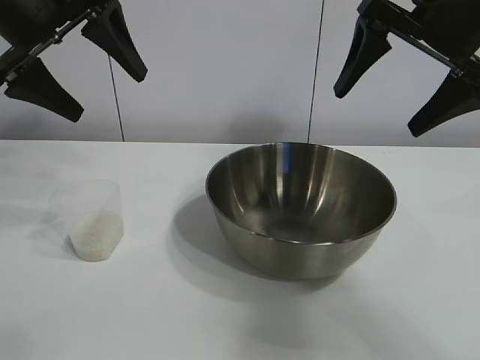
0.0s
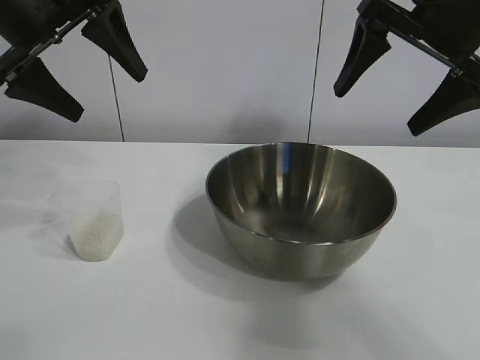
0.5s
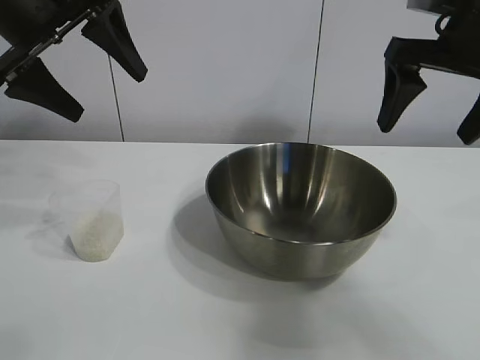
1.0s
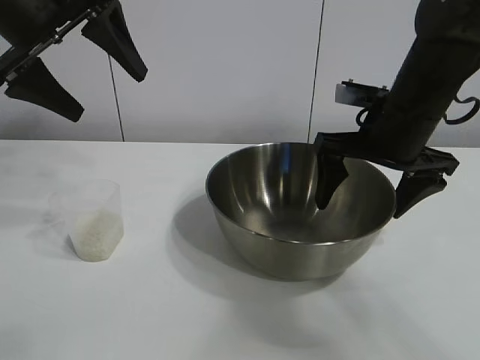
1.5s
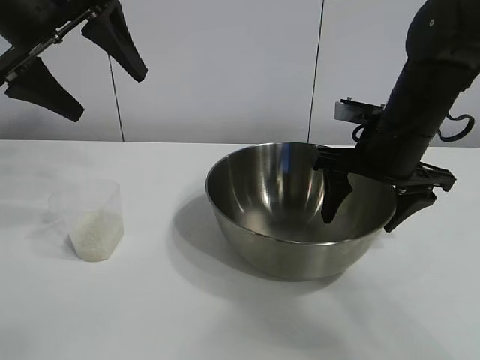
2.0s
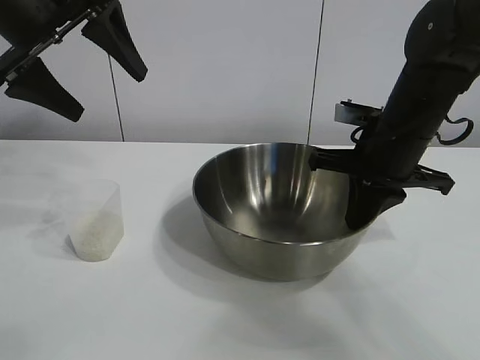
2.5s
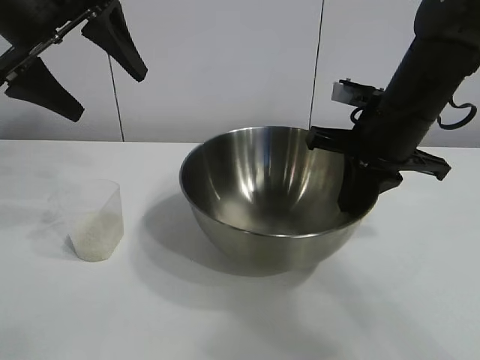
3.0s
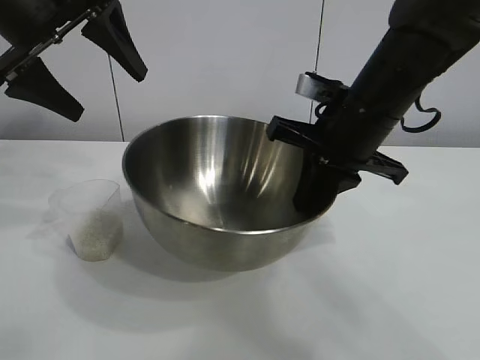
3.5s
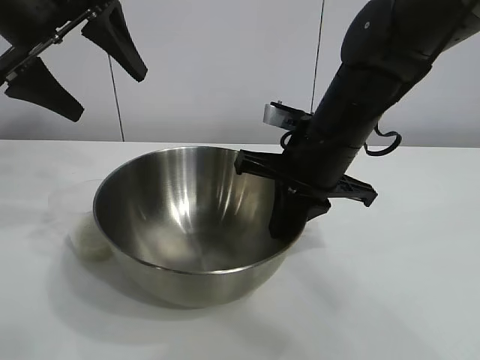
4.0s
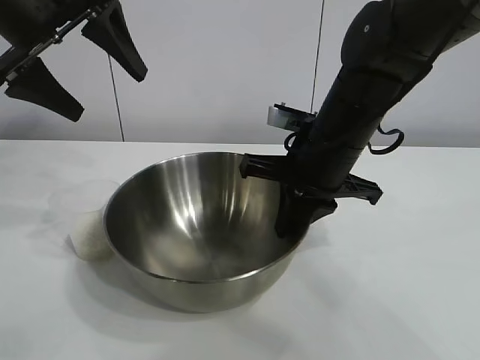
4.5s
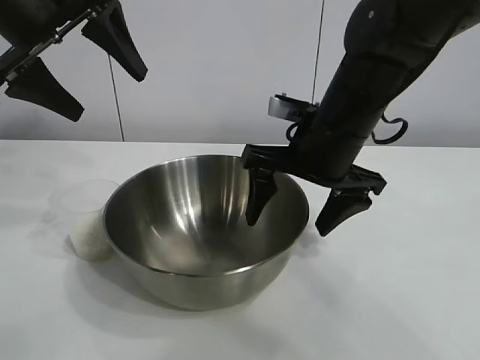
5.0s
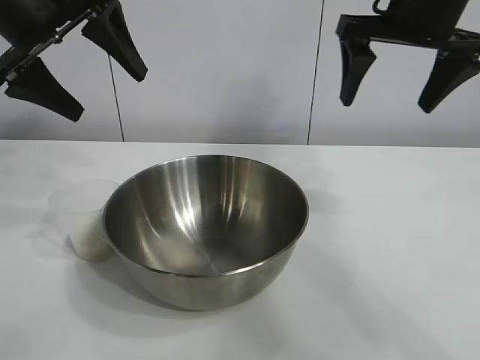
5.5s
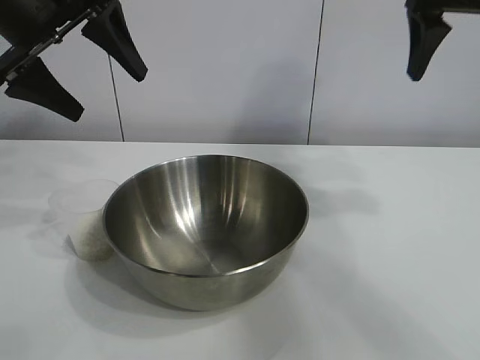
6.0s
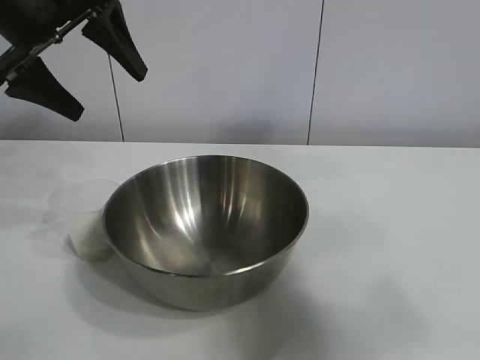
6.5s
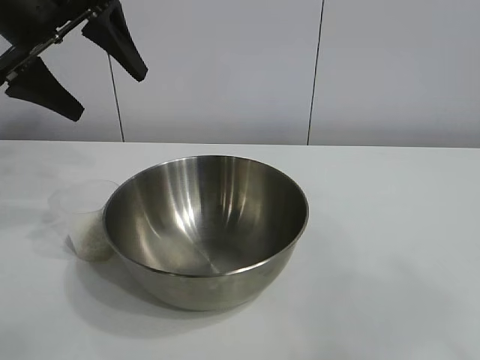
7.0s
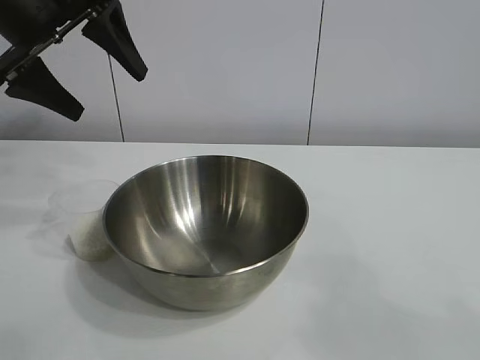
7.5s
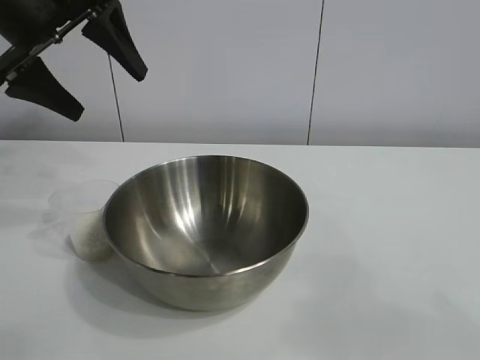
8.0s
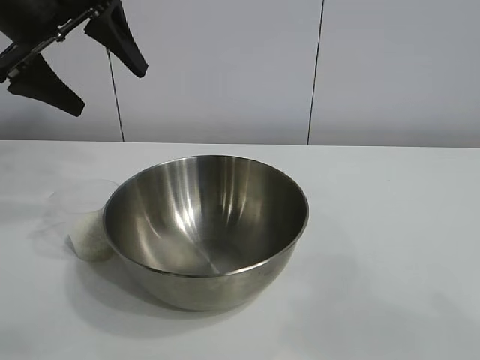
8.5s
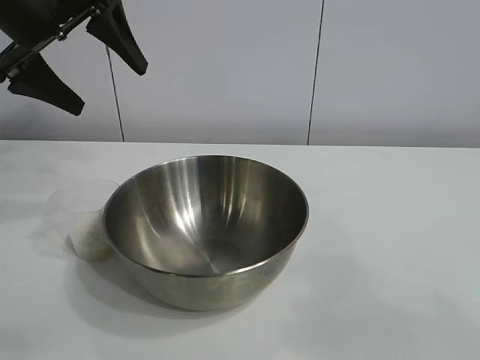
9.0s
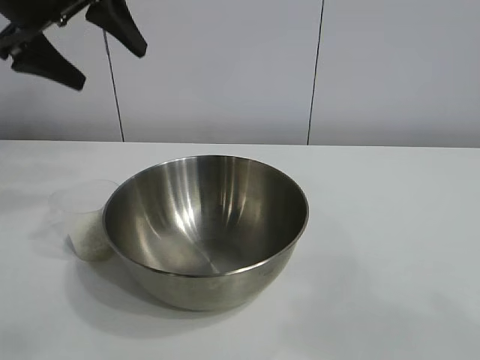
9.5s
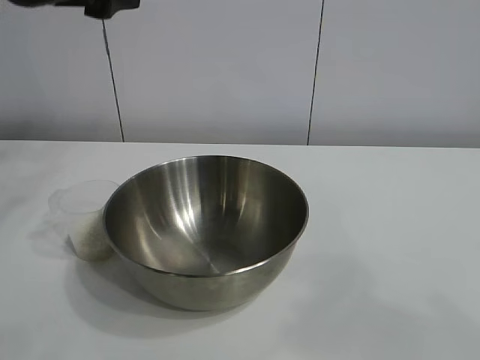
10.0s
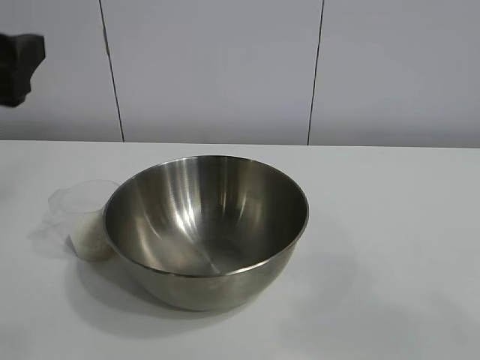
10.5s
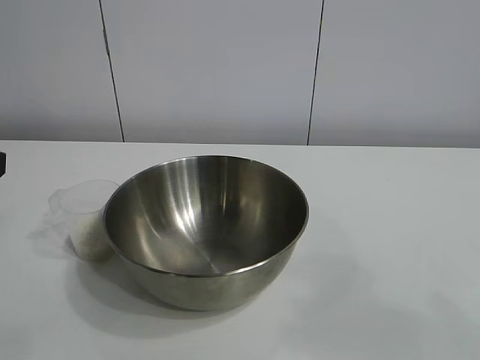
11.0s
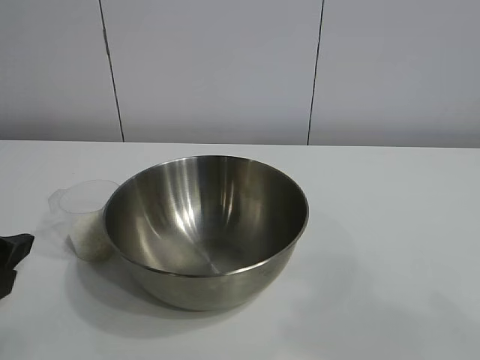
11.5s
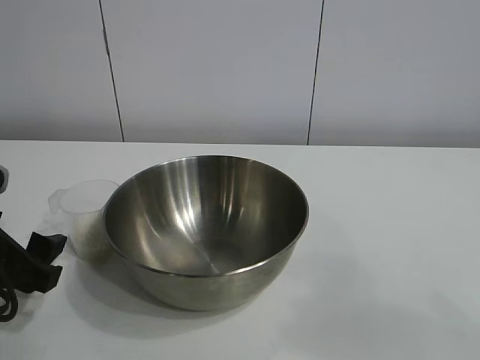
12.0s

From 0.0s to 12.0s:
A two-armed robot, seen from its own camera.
Task of the whole recording: the right gripper grasp the rice container and place it in the center of the table, the left gripper grasp the rice scoop and pour the rice into the rice container.
Step, from 1.0s to 4.5s: Move the bowl in the center of view with right gripper.

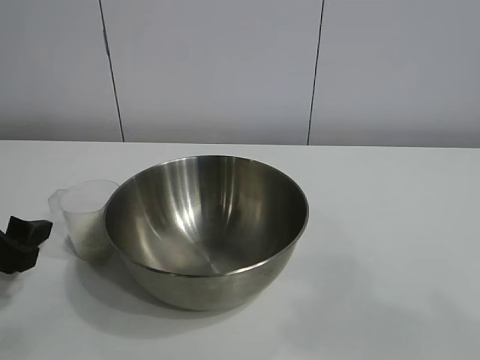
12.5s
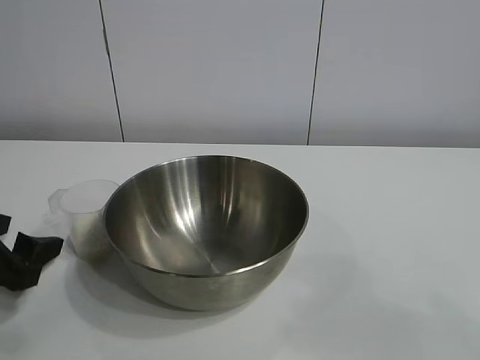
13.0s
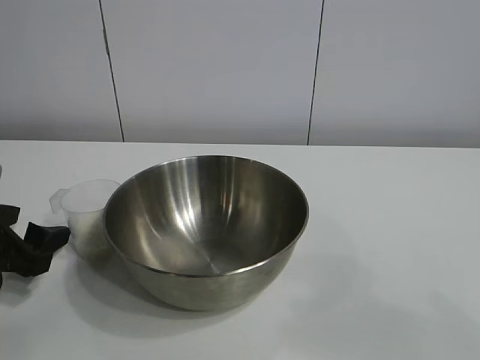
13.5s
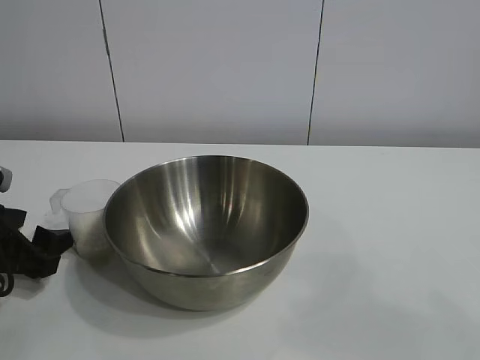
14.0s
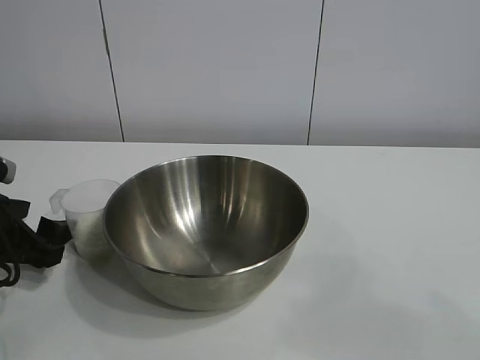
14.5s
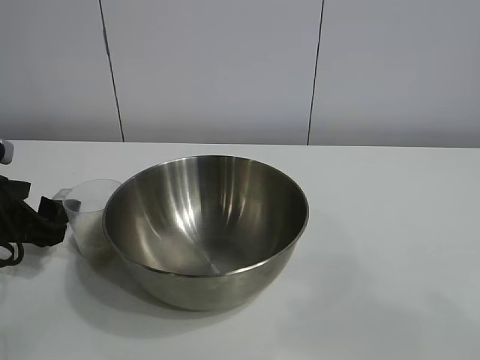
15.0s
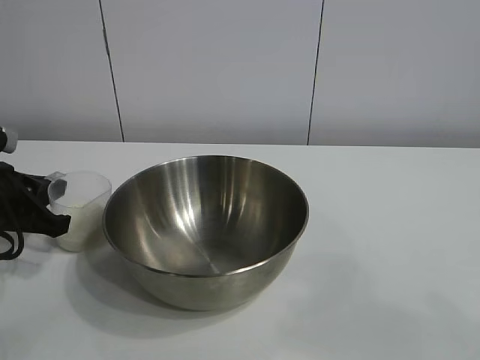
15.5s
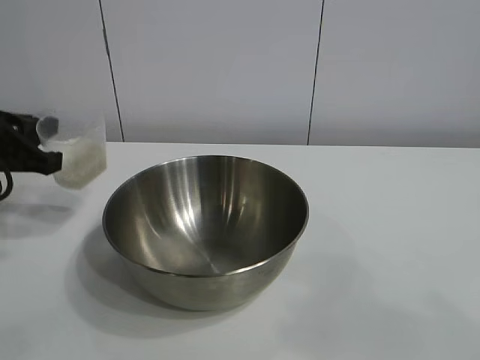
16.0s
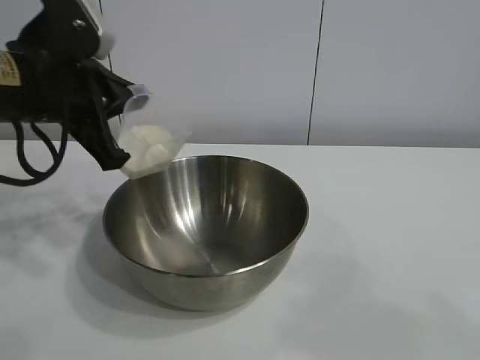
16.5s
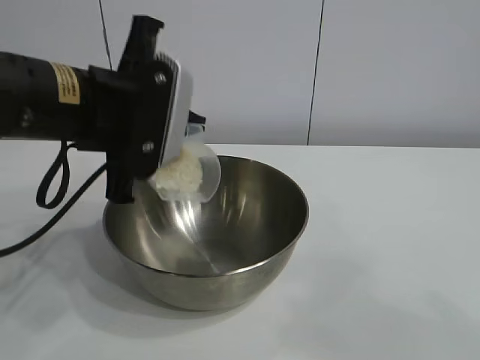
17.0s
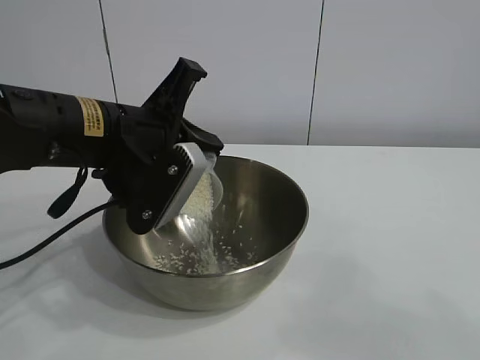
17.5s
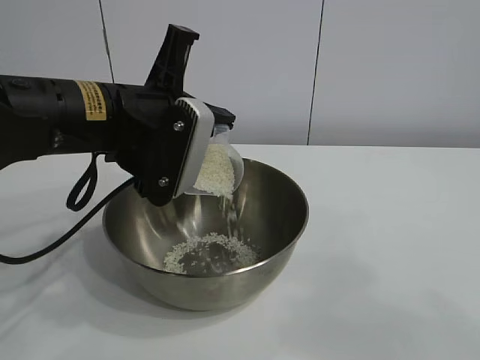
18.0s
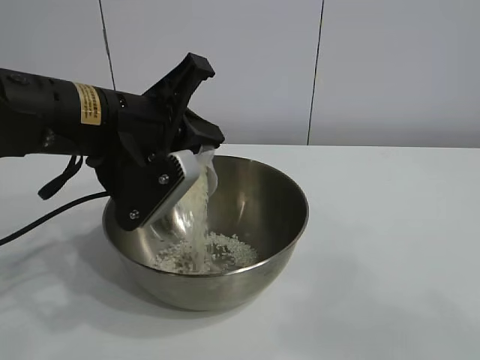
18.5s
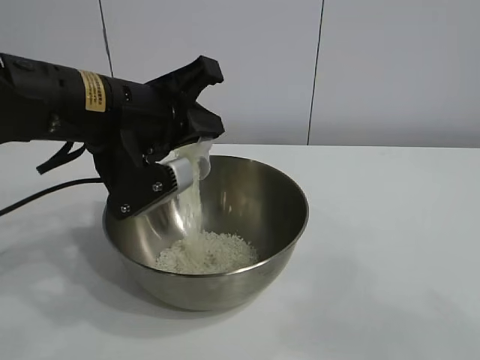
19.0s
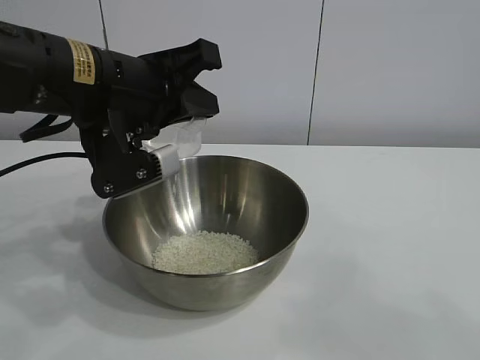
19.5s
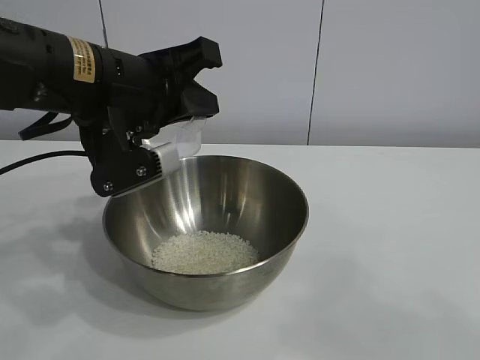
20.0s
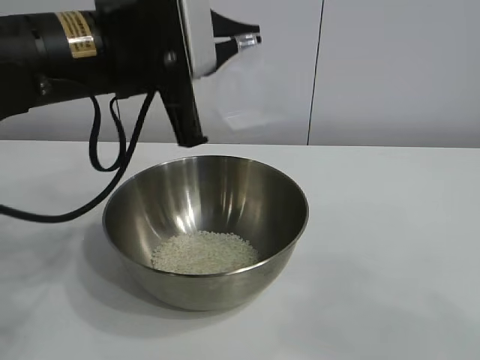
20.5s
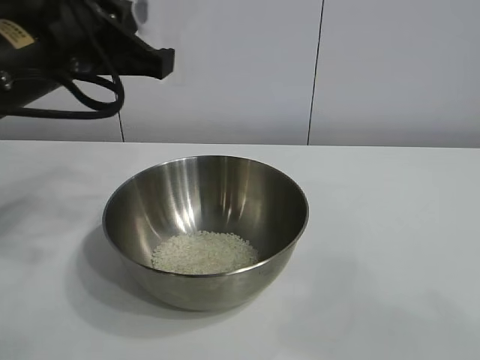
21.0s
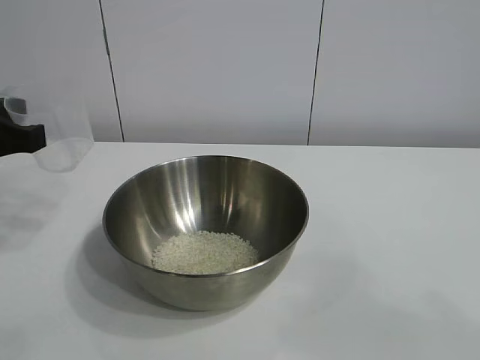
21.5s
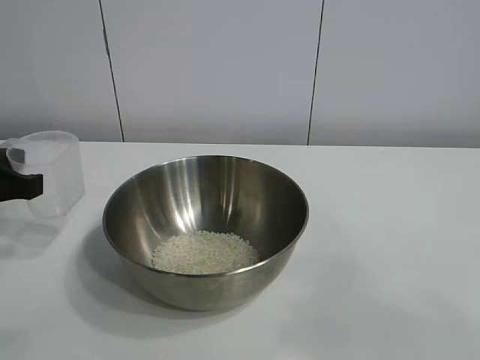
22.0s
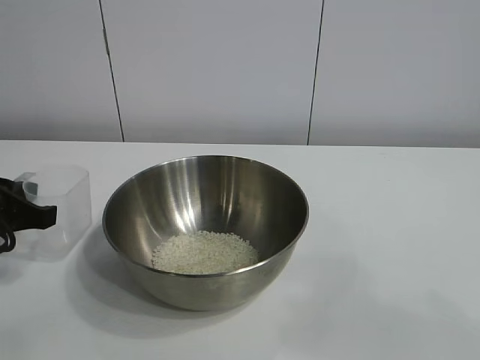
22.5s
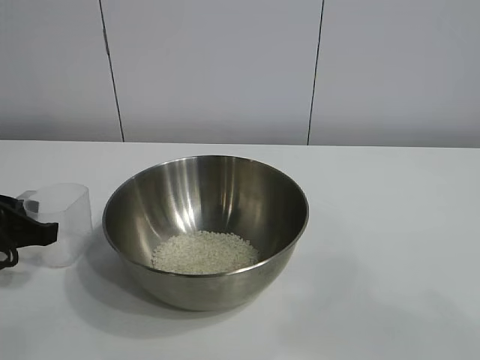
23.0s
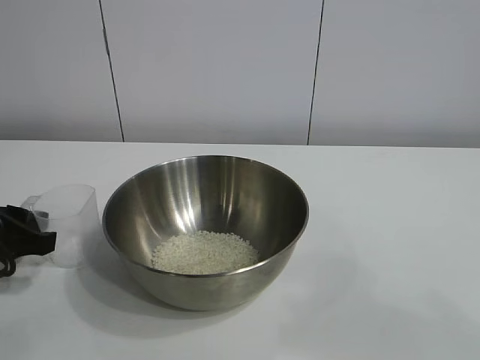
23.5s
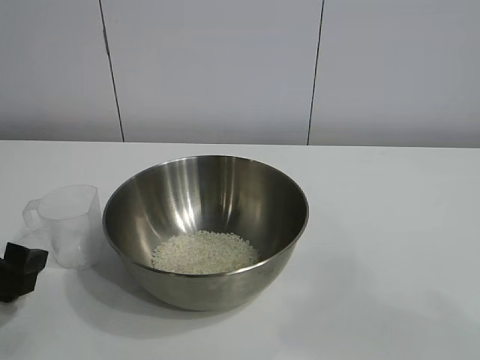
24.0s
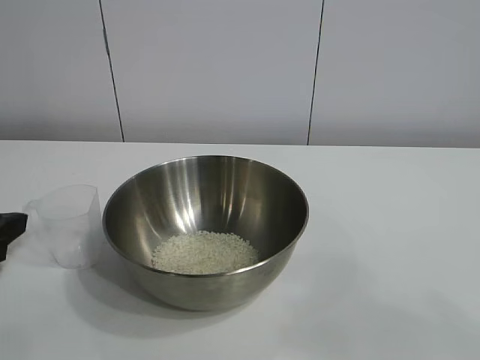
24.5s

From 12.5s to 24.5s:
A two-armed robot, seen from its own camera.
Task of the whole recording: the right gripper grasp the rice container and place it in the center of the table, the left gripper grasp the rice scoop and pour the rice into the rice container.
Step, from 12.5s to 15.0s: Grasp the cup with rice in it with left gripper.
Step, from 16.0s to 19.5s: Pour the rice from the cup into the bowl with the left gripper.
Step, from 20.5s to 23.5s: Place the cup on the table with the left gripper.

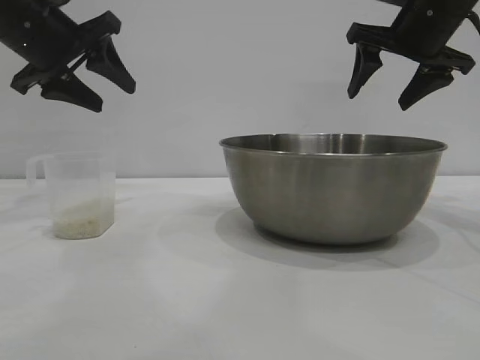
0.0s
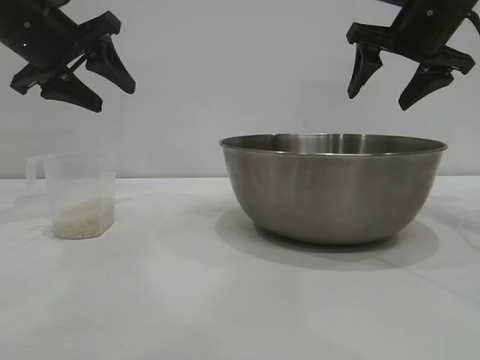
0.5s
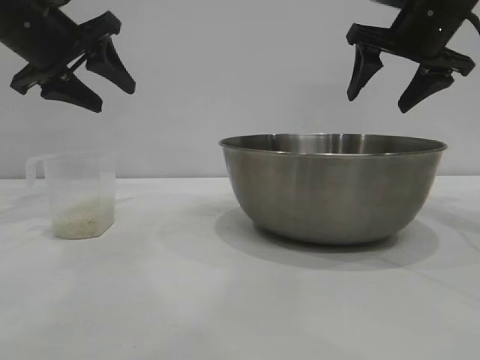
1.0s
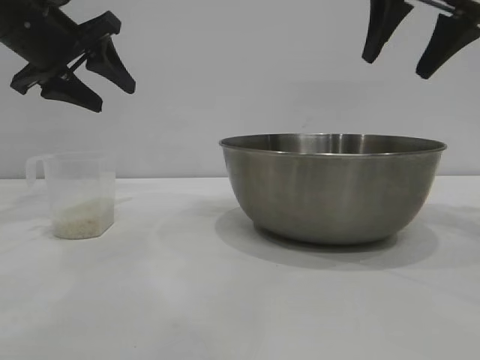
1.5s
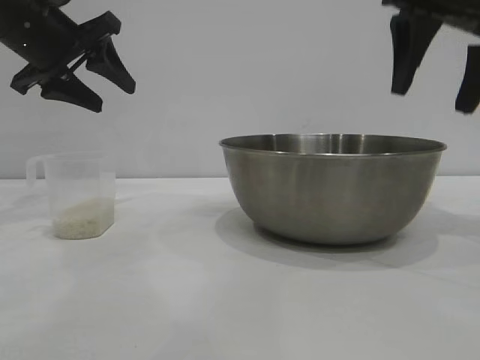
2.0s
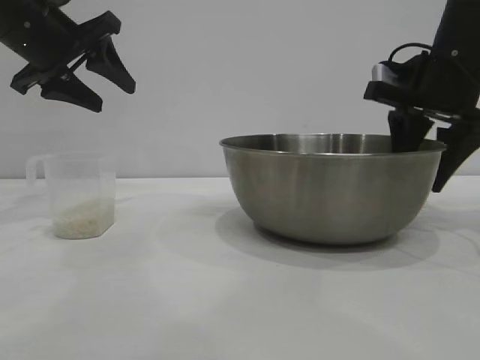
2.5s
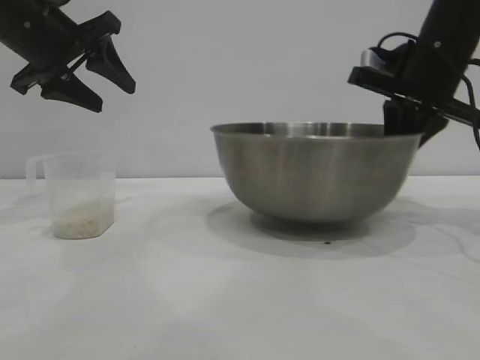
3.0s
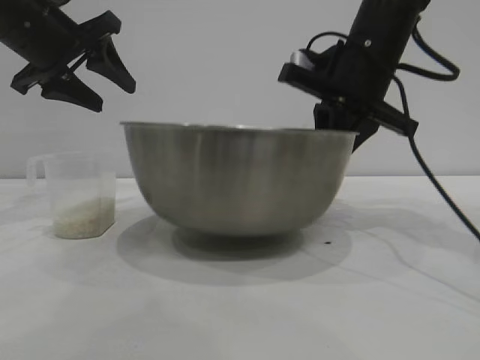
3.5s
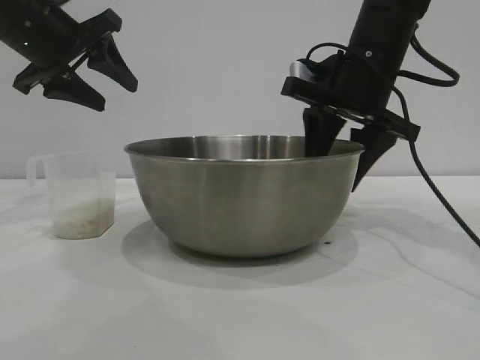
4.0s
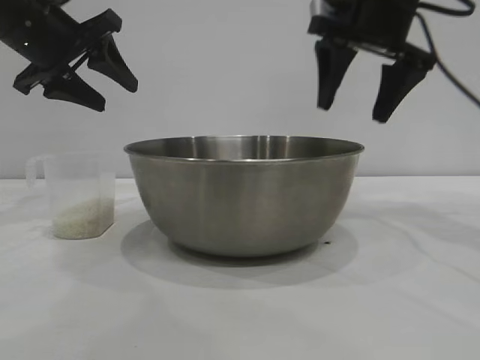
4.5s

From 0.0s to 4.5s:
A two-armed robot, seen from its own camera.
Task of the whole recording: the right gripper grasp the rice container and place it in the center of the table, the left gripper grasp the rice scoop and pour the rice into the rice container.
Step, from 0.0s to 2.5s: Pick up the bowl with the right gripper.
Step, from 3.0s to 4.0s: Place the bowl in the center of view with the right gripper.
